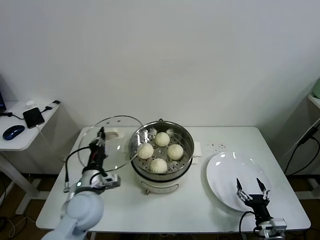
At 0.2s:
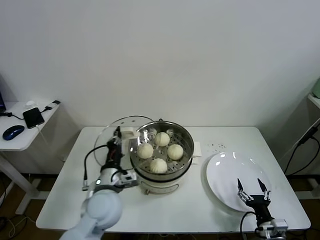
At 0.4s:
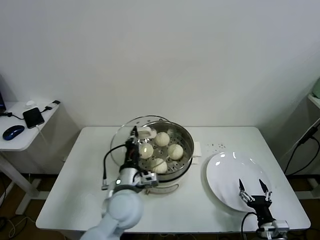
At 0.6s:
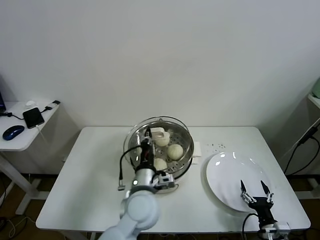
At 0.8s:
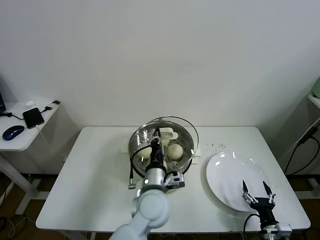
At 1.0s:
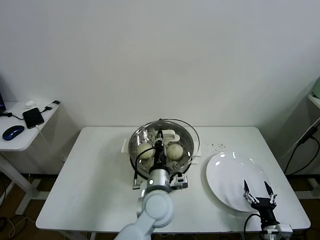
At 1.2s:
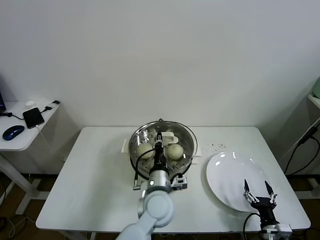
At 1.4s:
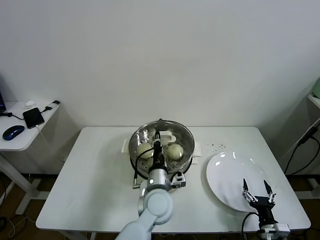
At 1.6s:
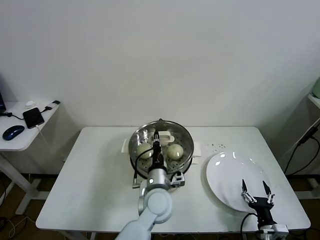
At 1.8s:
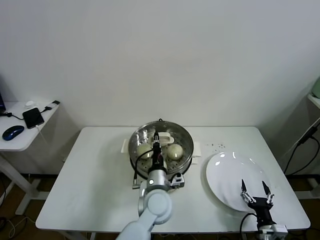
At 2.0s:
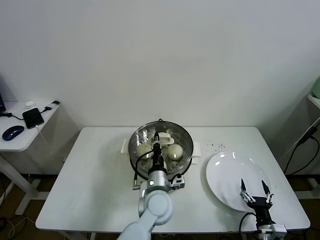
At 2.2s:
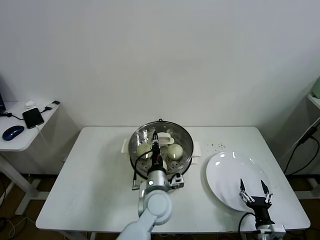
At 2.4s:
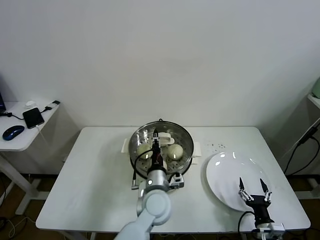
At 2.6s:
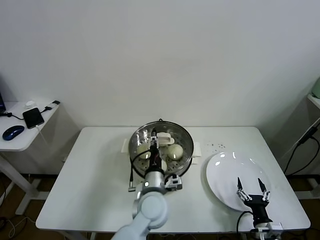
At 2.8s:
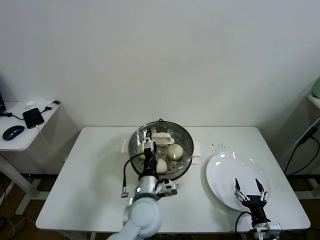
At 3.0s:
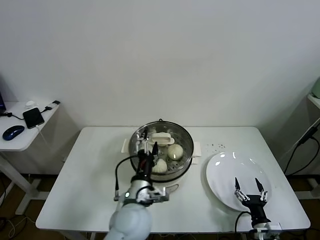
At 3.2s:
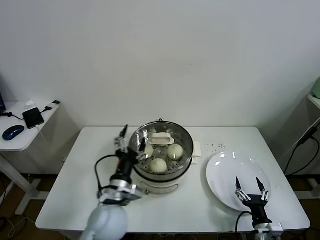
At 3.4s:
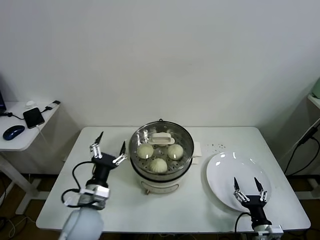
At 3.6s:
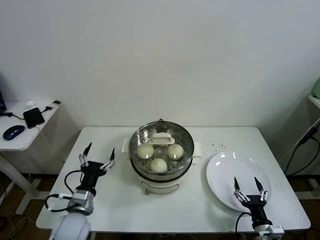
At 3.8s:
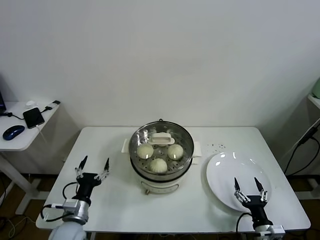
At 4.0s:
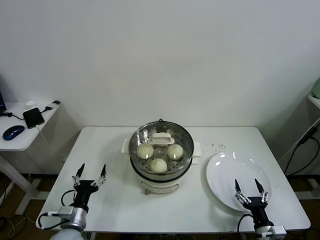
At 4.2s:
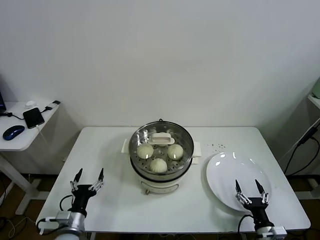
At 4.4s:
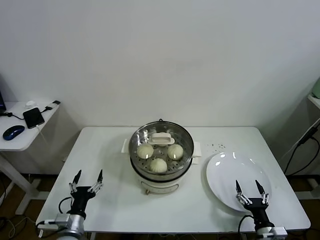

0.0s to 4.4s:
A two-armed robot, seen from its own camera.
Task of the whole recording: take steamed baozi put them in steamer.
Step, 0.0s to 2.4s: Place the pot lid on the steamer with left gripper.
0.0s to 1.4s: The left gripper goes about 20 cm to the right.
1.4s to 3.0s: The left gripper heads to the left, covering some 5 cm, and opens.
3.0s to 4.4s: The left gripper shifts some 25 cm to the left and downward.

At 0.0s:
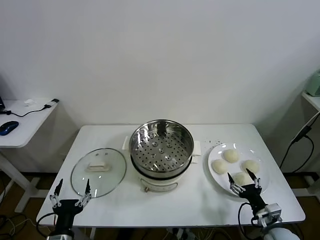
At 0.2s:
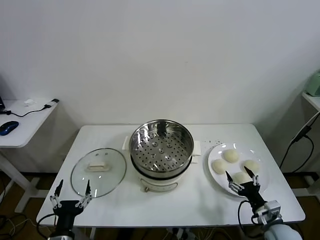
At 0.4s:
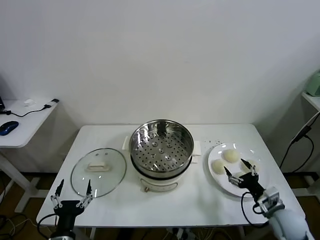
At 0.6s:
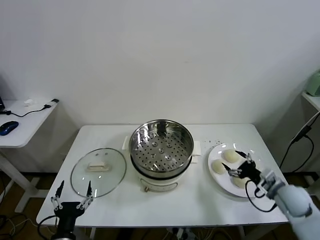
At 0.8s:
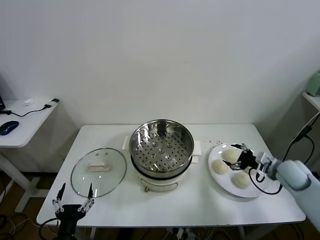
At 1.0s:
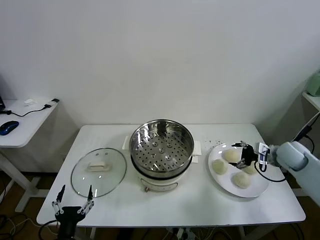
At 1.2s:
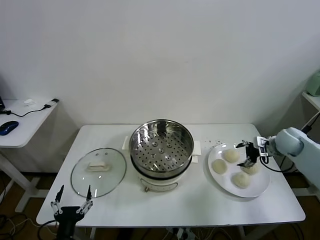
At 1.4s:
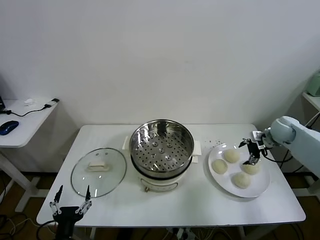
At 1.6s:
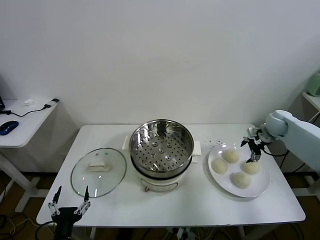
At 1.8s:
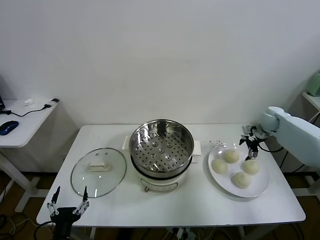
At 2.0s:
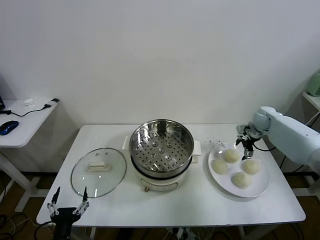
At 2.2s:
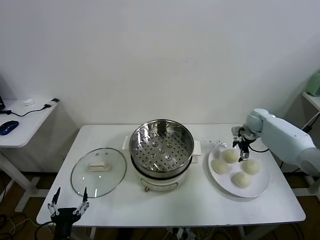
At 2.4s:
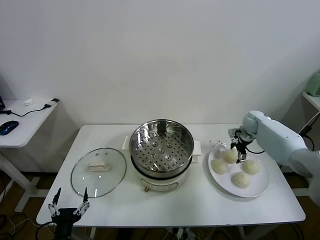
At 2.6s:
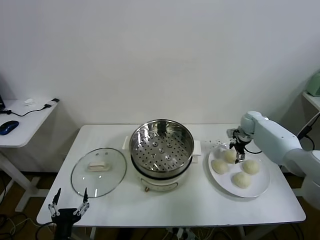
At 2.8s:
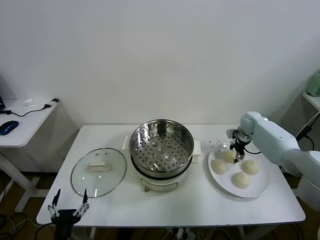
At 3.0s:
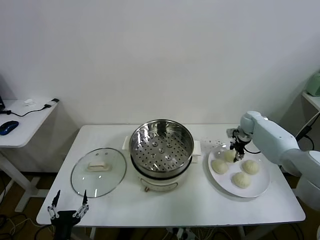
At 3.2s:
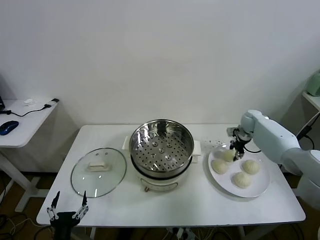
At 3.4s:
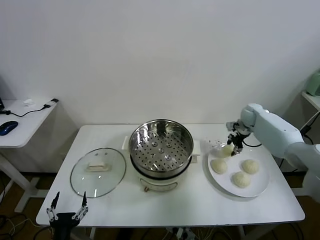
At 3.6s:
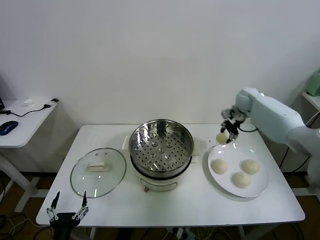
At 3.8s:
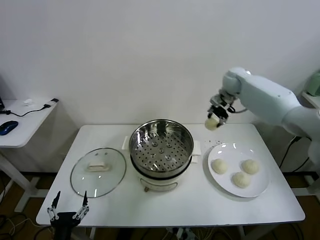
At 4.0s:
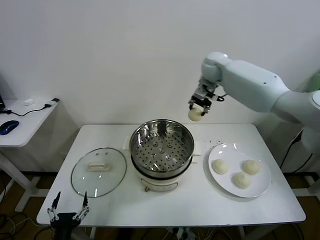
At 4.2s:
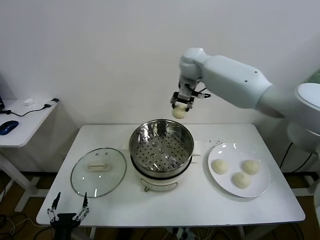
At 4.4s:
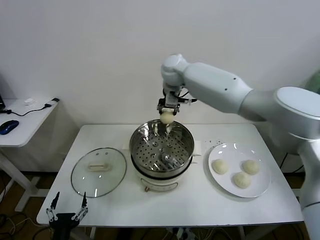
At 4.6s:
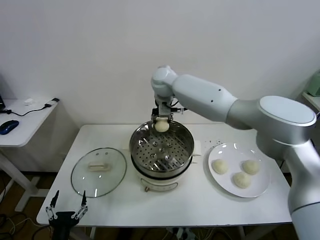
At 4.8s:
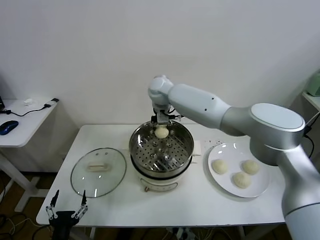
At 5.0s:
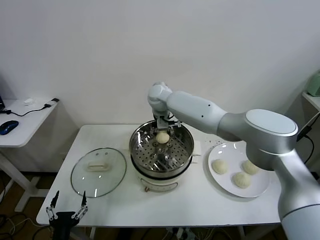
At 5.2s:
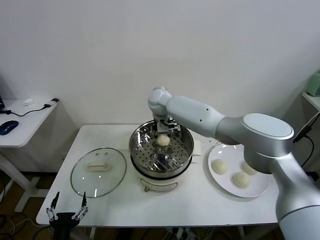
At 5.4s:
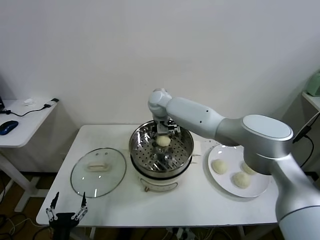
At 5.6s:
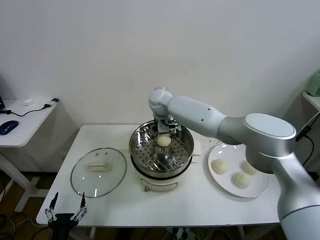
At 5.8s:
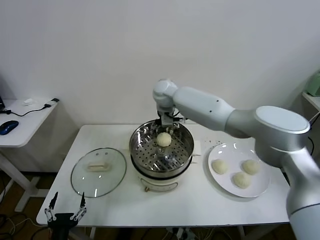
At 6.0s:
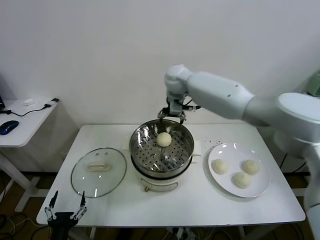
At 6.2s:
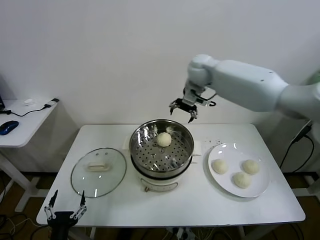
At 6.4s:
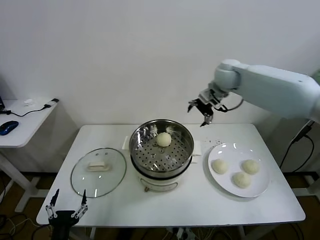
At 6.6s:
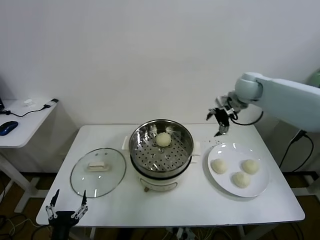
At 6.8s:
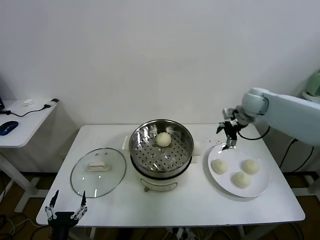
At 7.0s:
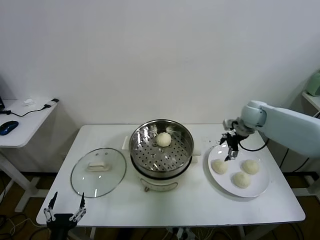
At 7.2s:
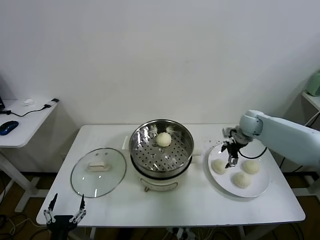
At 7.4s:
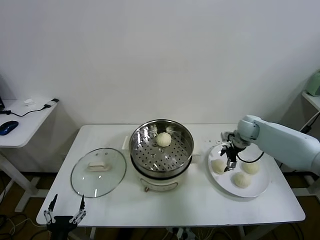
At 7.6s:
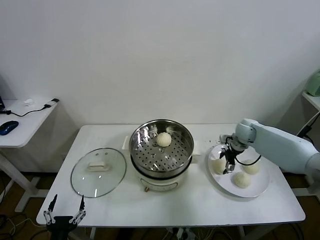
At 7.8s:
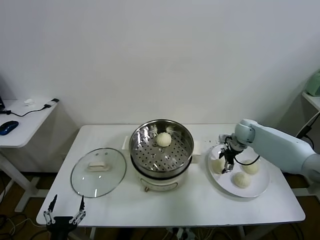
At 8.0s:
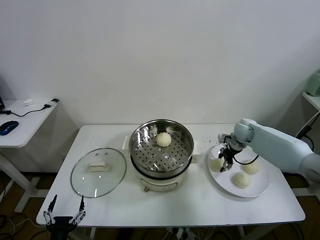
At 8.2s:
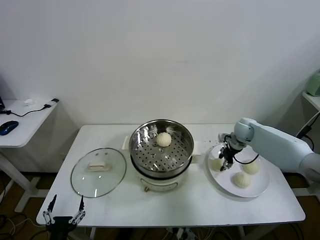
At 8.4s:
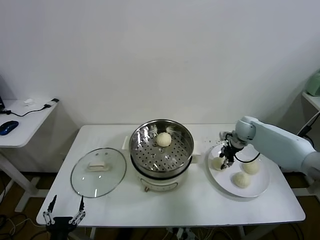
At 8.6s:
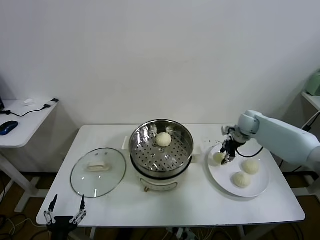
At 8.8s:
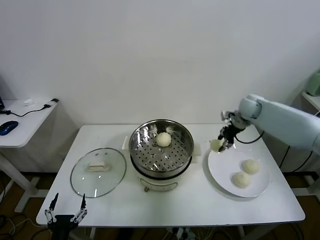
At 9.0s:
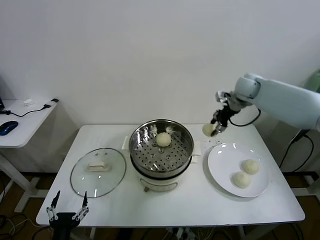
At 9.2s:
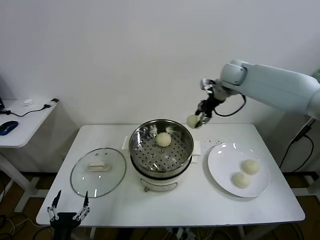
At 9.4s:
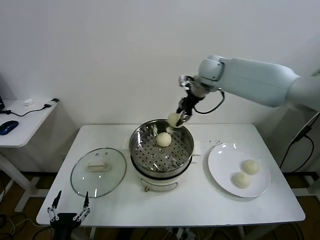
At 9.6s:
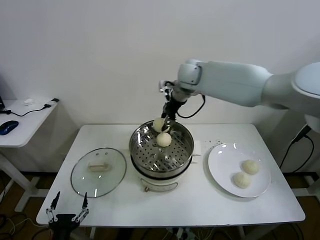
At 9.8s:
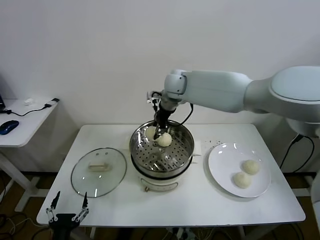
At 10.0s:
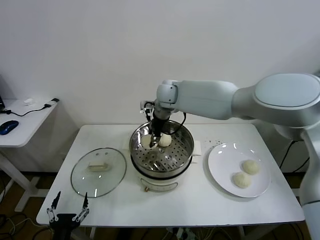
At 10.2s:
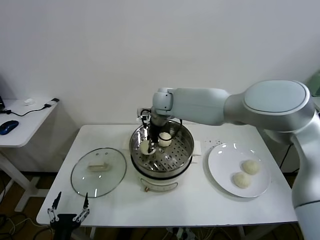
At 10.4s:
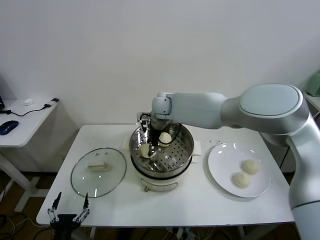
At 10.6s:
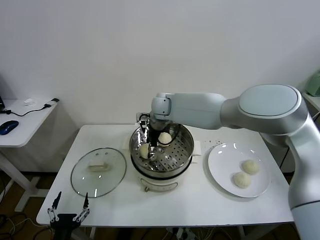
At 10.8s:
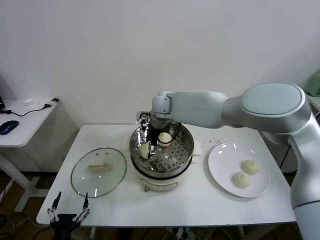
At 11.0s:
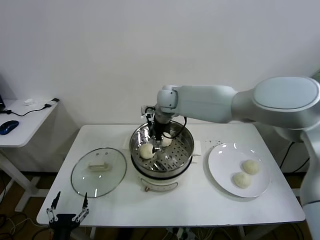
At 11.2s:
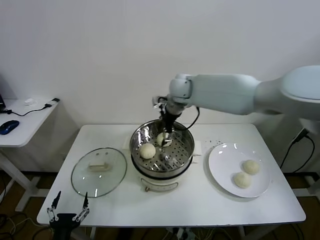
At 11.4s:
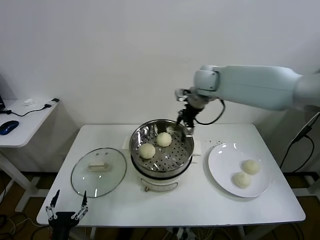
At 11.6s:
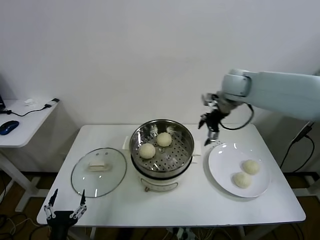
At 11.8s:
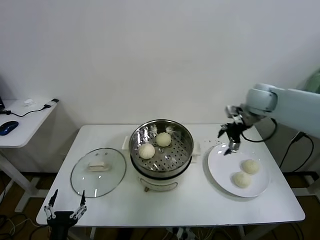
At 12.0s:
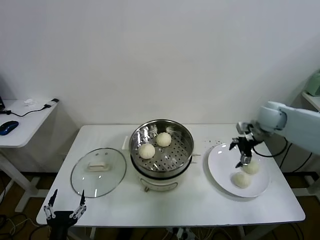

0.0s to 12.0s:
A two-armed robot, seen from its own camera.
Task of the whole recording: take steamed baozi put them in steamer.
Step, 0.0s to 2.8s: Grasp the baozi in the plate with right gripper.
Step, 3.0s to 5.6s: Place the baozi on the steamer with right gripper.
Step, 5.8s to 8.0s: Grasp the baozi in the plate with right gripper.
Step, 8.2s to 10.8s: Place the baozi on the steamer with right gripper.
1.6s to 3.0s: The right gripper heads downward and forward, covering approximately 10 cm, and closes.
3.0s to 4.4s: The right gripper goes about 40 cm to the left and upward.
4.4s to 6.0s: The right gripper shifts about 5 cm to the right, goes downward and returns, approximately 10 cm each way, and opens up.
6.0s to 7.6s: The right gripper moves to the right and downward, approximately 35 cm.
7.6s to 9.0s: The right gripper shifts approximately 20 cm upward, and closes up.
9.0s to 10.4s: The right gripper shifts roughly 30 cm to the left.
10.4s to 12.0s: The right gripper goes some 40 cm to the right, and opens up.

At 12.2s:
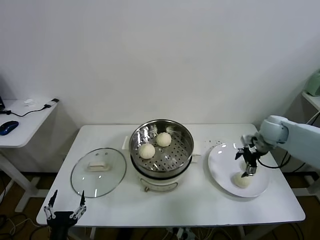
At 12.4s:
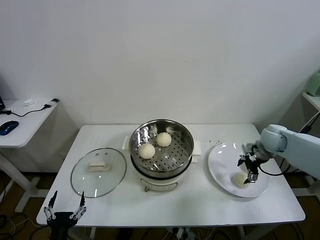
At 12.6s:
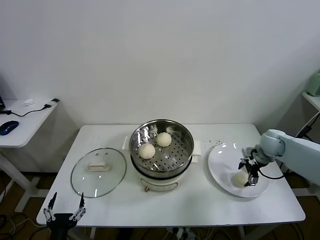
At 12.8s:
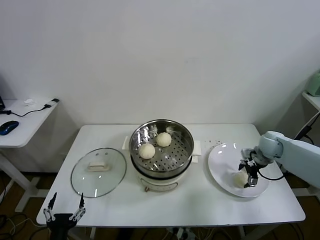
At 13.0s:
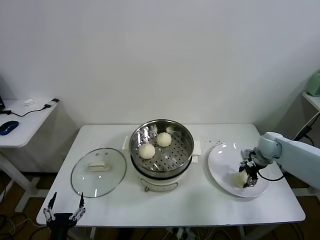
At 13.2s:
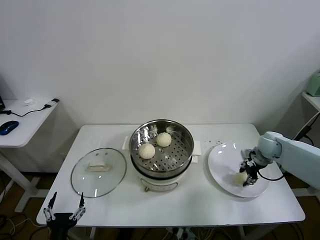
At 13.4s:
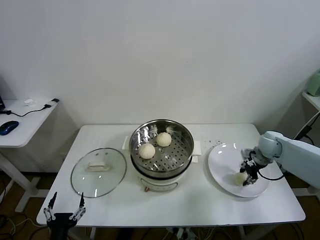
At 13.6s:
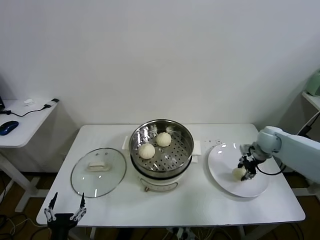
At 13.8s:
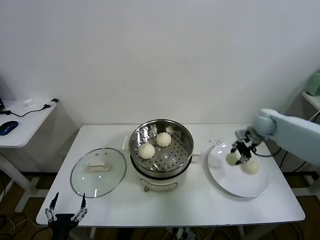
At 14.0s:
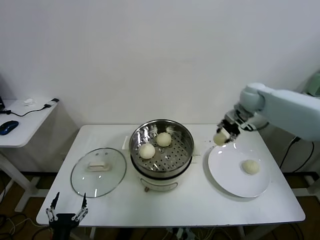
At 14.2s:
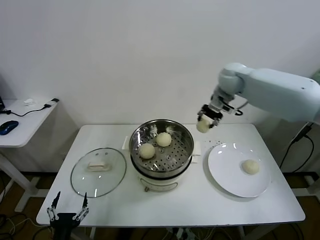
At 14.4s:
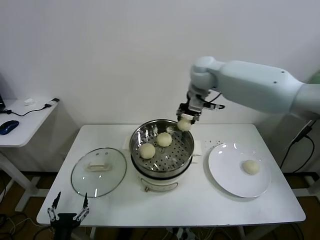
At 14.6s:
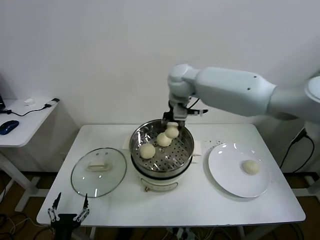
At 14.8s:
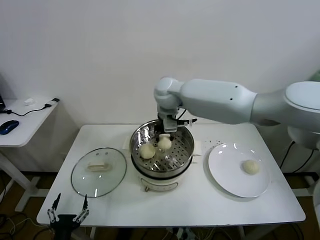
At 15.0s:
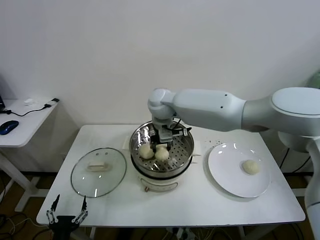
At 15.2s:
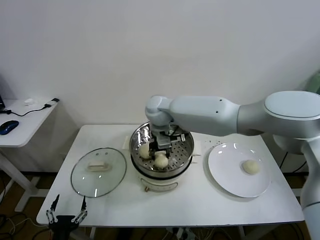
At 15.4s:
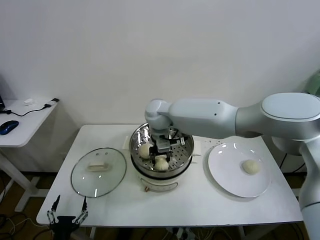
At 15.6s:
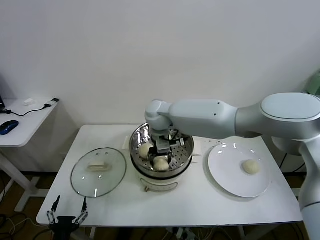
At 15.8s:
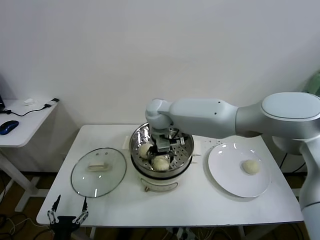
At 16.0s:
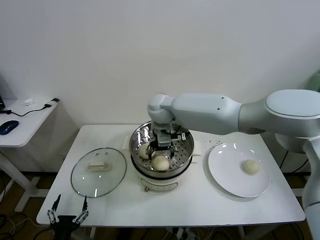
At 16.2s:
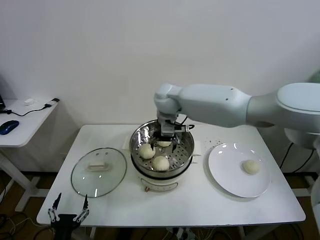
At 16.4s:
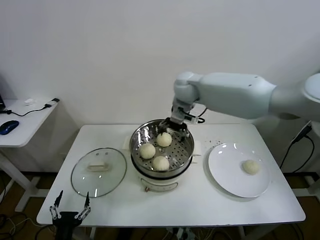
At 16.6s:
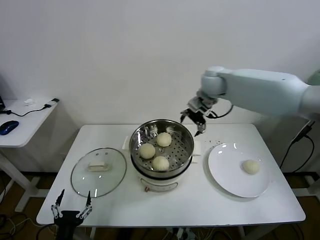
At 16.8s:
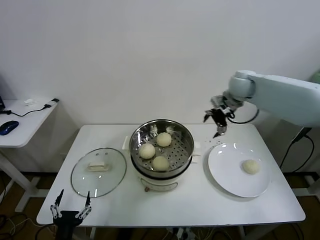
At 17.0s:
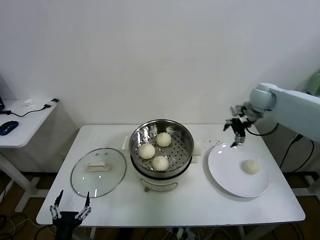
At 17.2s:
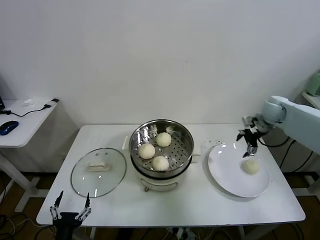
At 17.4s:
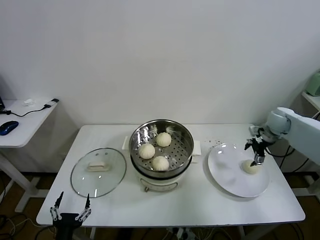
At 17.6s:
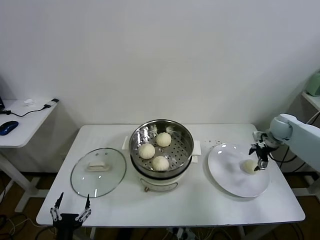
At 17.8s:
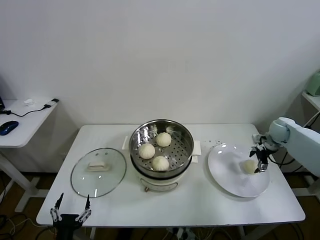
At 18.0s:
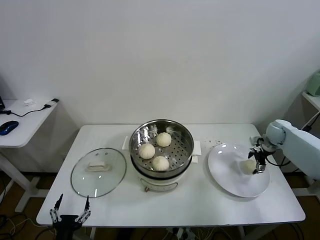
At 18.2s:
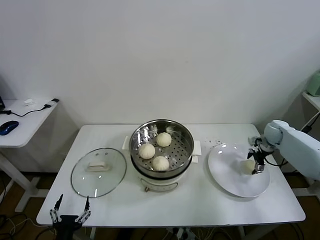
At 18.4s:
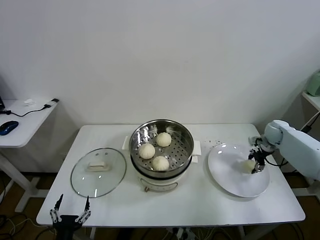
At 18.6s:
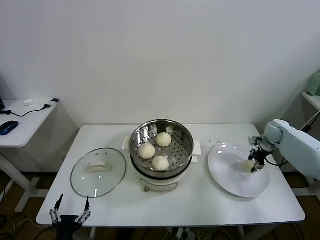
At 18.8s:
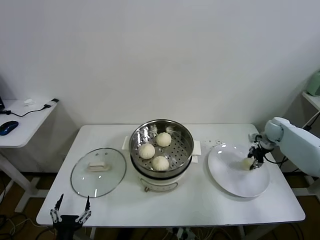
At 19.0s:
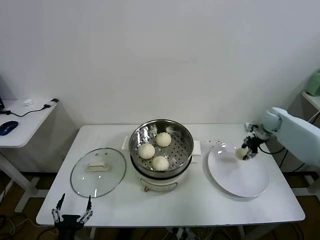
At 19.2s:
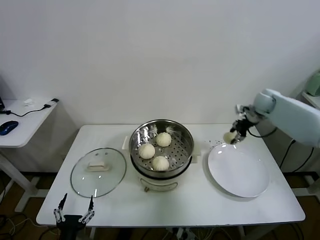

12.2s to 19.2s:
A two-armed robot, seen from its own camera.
Task of the whole recording: take steamed baozi put them in steamer.
Step, 13.4s to 15.8s: Place the baozi on the steamer with right gripper.
Step, 16.0s to 18.6s: Grasp the baozi in the plate with right gripper.
12.2s to 13.6s: The right gripper closes up.
13.6s to 15.0s: The right gripper heads to the left, covering about 40 cm.
15.0s to 16.4s: The right gripper is displaced to the right by about 10 cm, and opens up.
16.4s to 17.8s: The right gripper is displaced to the right and downward by approximately 40 cm.
17.8s to 19.2s: The right gripper shifts approximately 15 cm upward, to the left and forward, and closes up.
